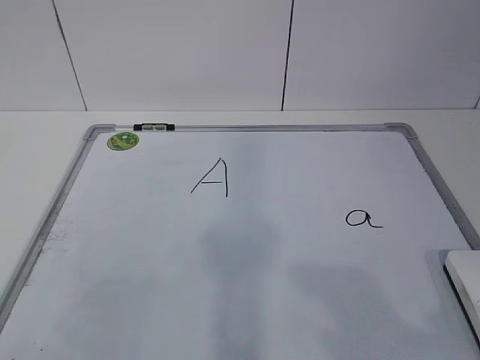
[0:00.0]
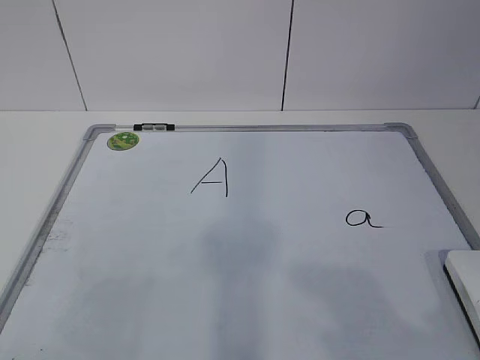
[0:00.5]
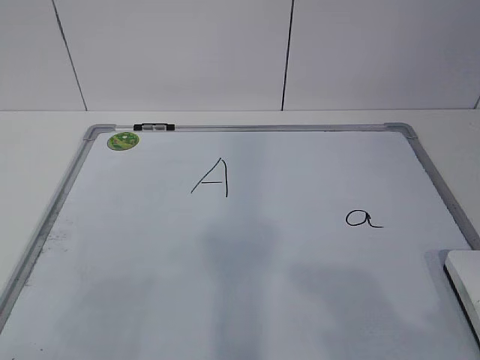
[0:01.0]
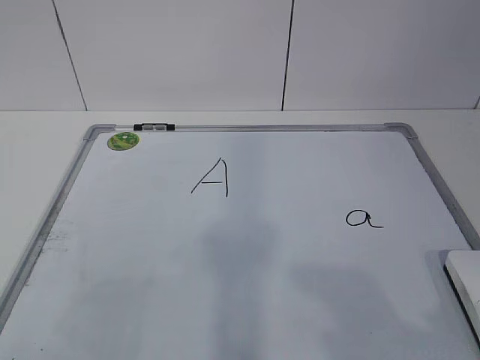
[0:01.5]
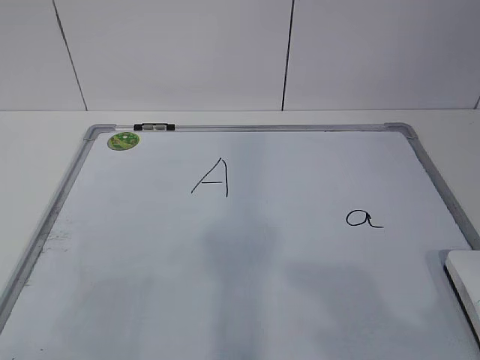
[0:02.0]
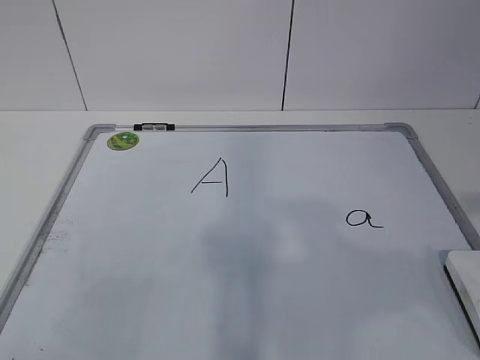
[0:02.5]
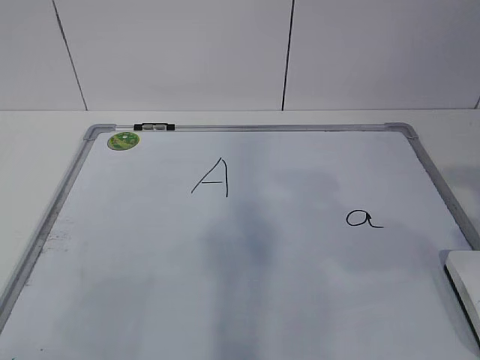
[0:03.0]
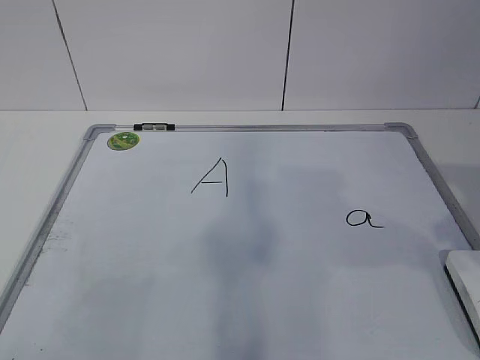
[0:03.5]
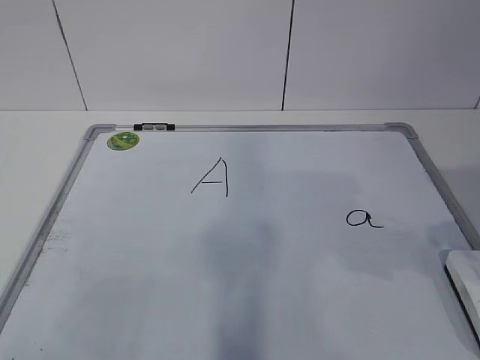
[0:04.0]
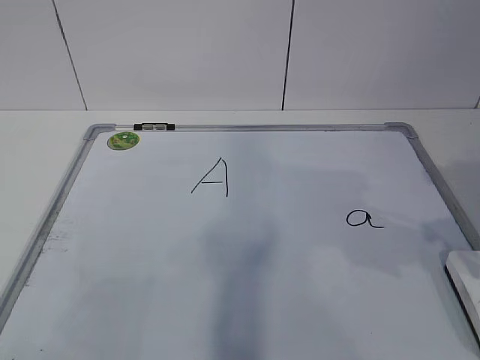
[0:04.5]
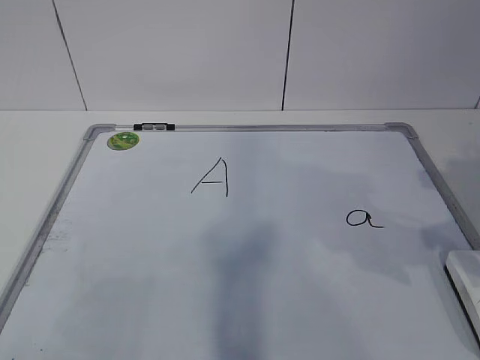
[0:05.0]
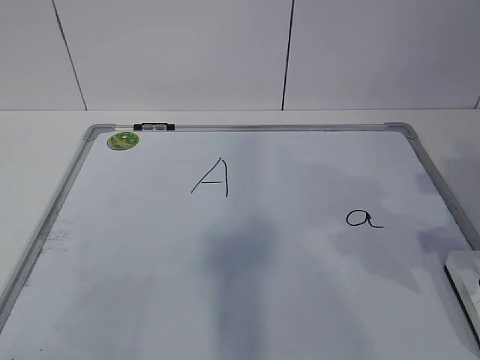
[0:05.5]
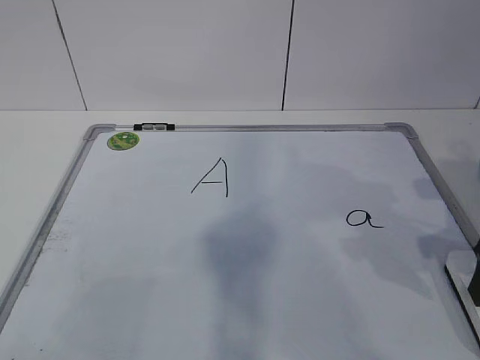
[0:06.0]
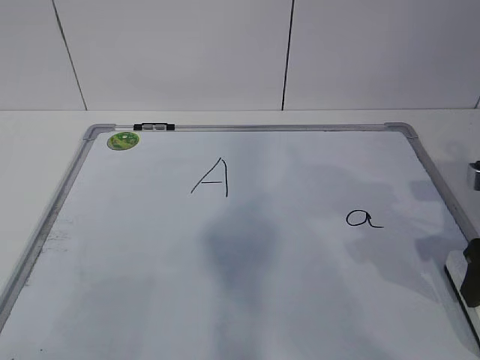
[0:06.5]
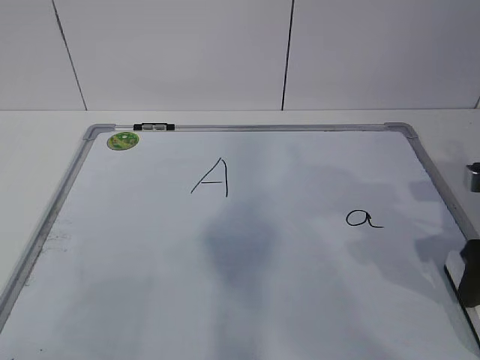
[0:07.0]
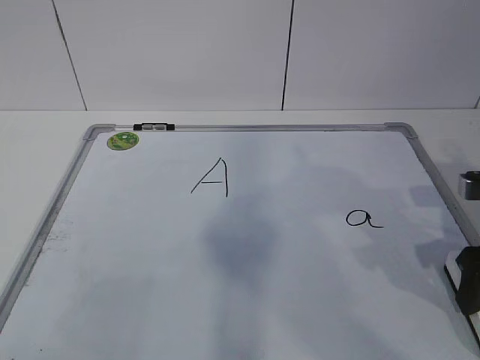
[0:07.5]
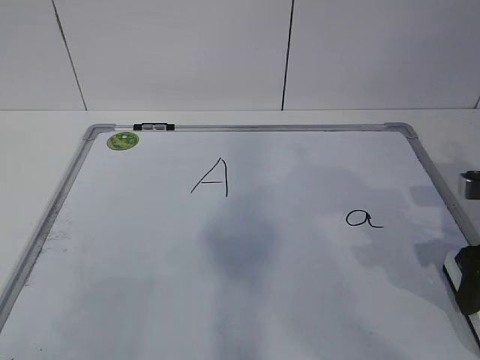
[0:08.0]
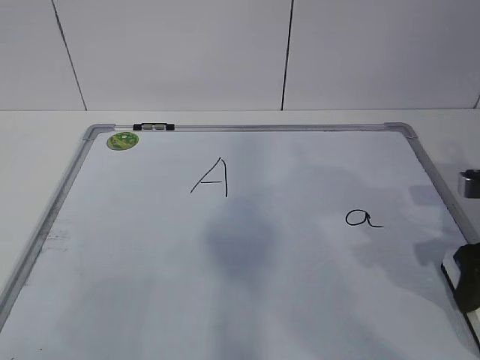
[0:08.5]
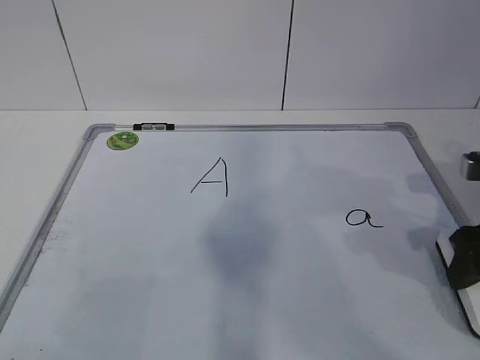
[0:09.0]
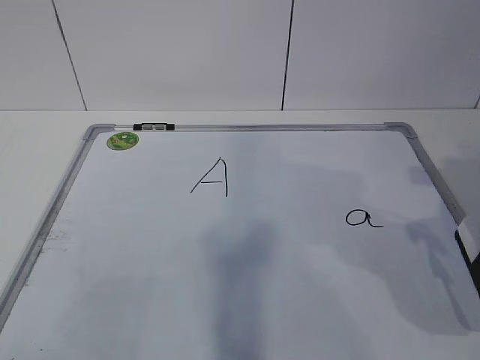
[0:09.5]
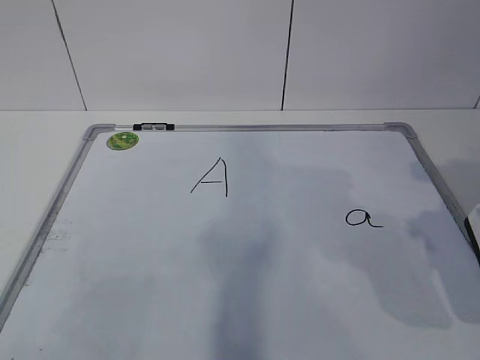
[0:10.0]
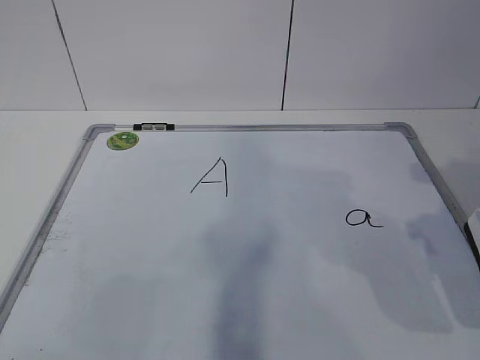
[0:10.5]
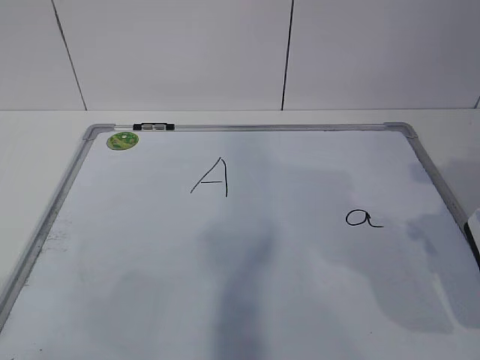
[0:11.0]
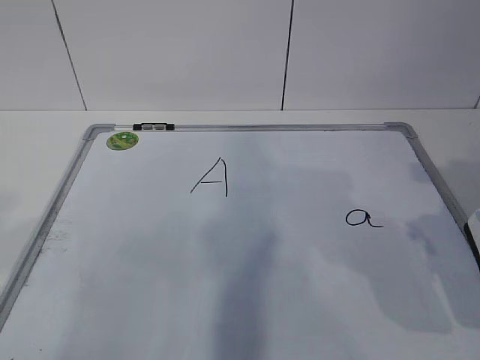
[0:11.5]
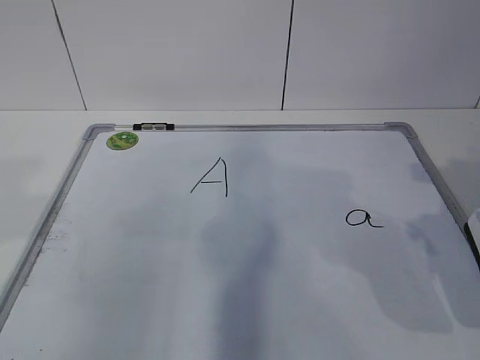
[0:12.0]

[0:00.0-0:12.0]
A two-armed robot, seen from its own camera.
Task of the whole recording: pick up the eraser on the blackboard and erase the letter "a".
0:06.0 to 0:08.0: The grippers stay close to where they were, moving slightly.
0:08.0 to 0:10.0: The right gripper travels upward and backward by some 10 cm.

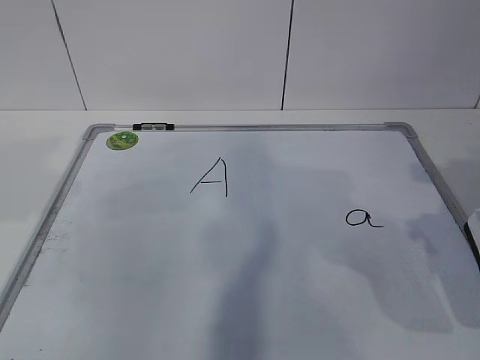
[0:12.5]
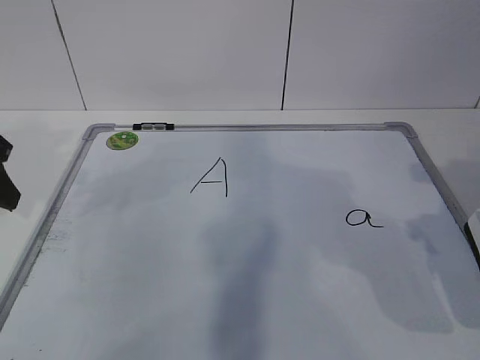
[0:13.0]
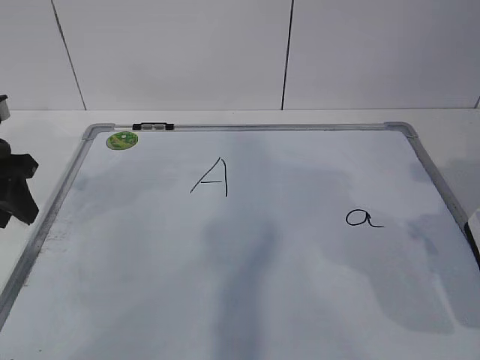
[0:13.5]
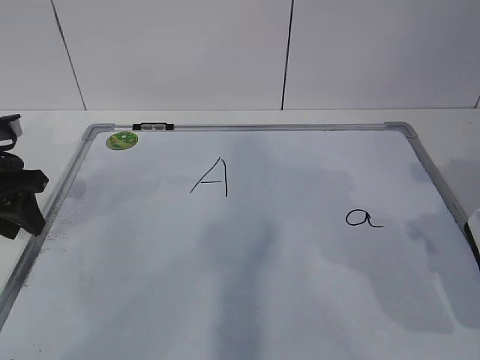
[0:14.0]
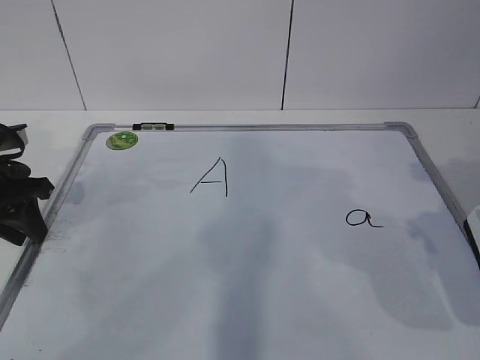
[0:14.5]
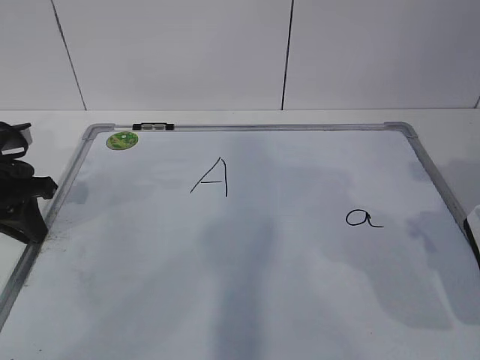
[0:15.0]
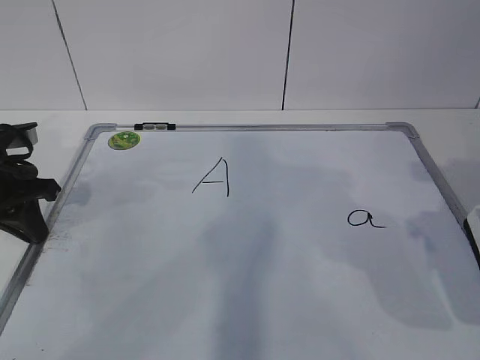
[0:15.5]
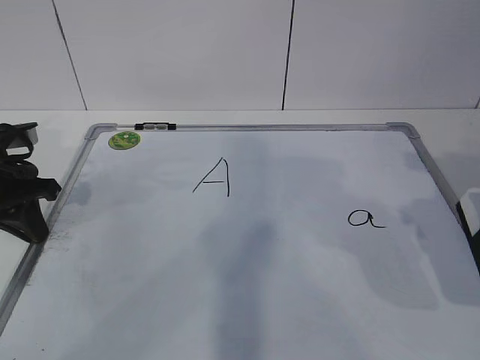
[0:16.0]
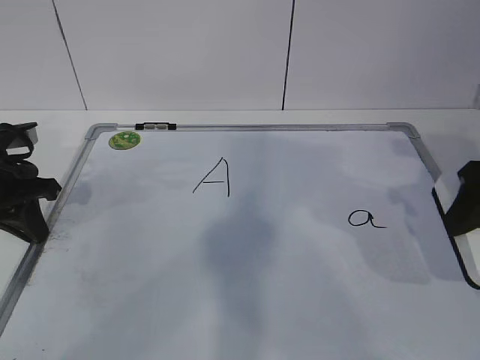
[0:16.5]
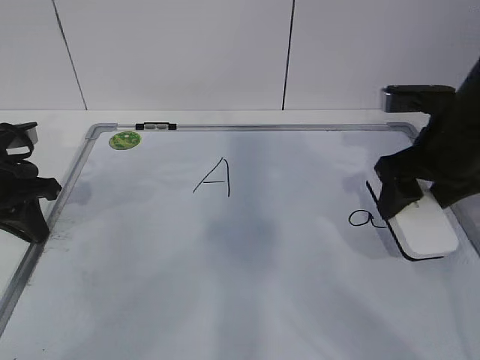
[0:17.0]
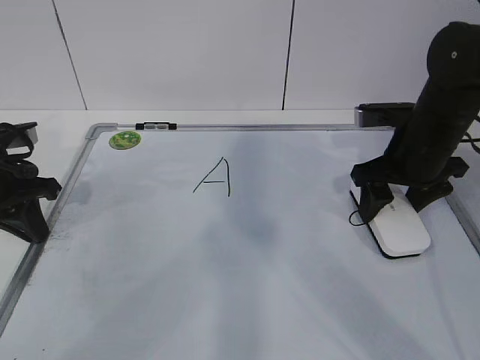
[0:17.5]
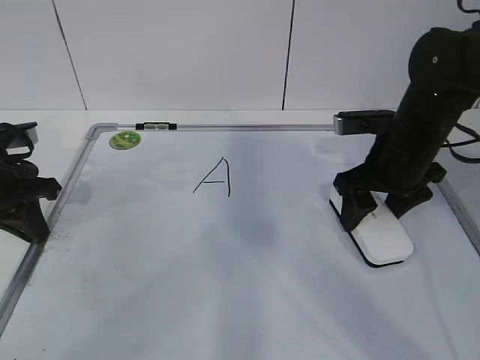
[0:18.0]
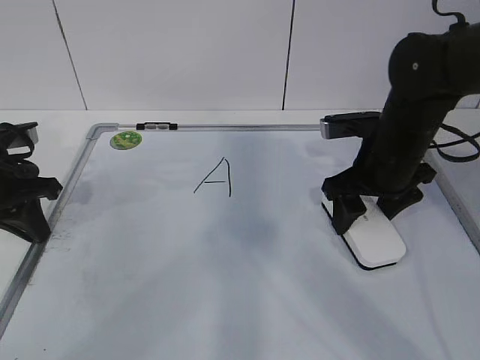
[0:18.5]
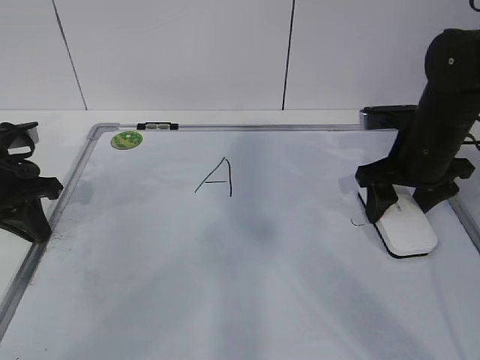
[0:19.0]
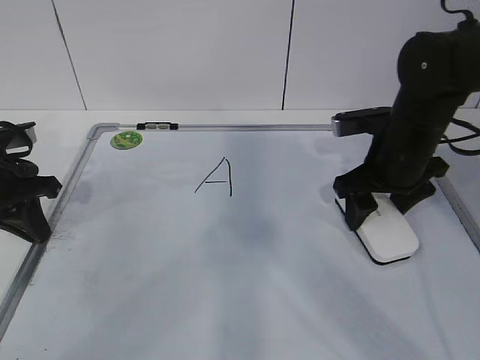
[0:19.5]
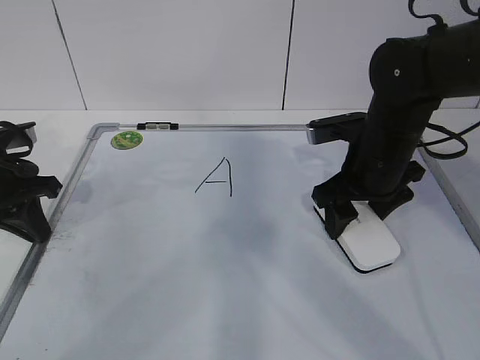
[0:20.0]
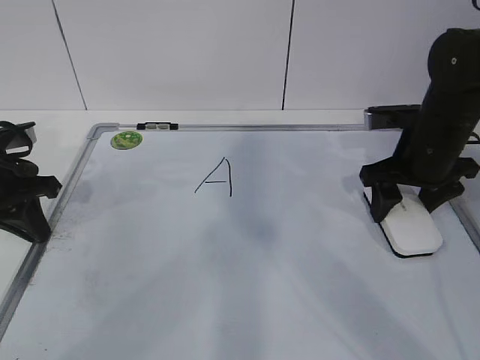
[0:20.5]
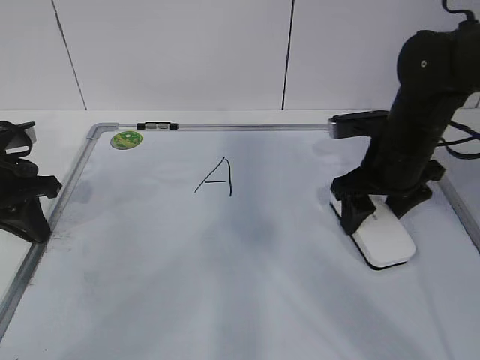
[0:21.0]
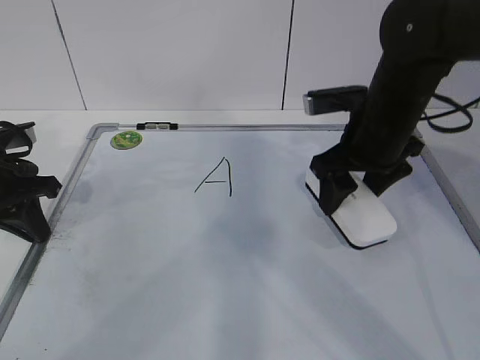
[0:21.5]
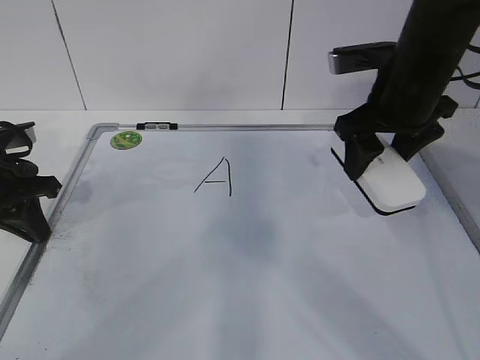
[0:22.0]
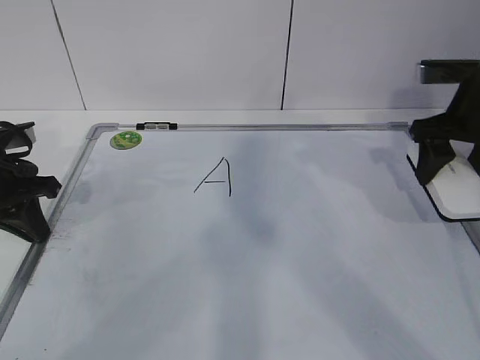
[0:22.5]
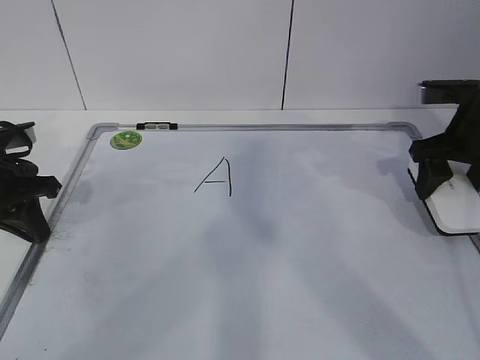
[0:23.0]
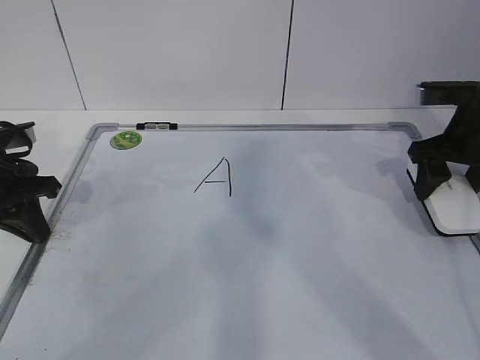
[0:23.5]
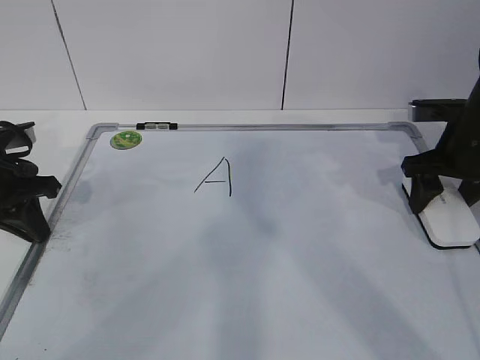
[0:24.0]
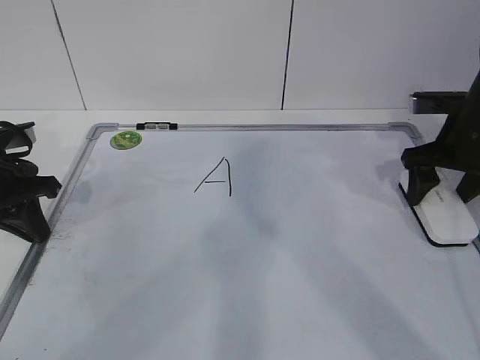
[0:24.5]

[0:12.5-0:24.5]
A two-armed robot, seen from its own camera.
Task of the whole recording: pick up the eraser on the blackboard and erase the letter "a".
Step, 0:13.0 to 0:17.5: Erase the letter a with your right hand.
Step, 0:18.0 to 0:20.0: Put down the eraser with your right hand.
0:12.5 to 0:14.5: The left gripper moves downward and forward, about 15 cm.
0:14.5 to 0:16.5: The left gripper closes its fingers; the right gripper heads forward, covering roughly 5 cm.
0:16.5 to 0:18.5: The right gripper shifts roughly 15 cm forward, to the left and downward.
0:18.5 to 0:20.5: The right gripper moves left and right over approximately 5 cm, changing direction 2 times.
0:20.5 to 0:22.5: The right gripper shifts roughly 5 cm upward.
0:22.5 to 0:24.5: The right gripper is displaced downward by about 5 cm.

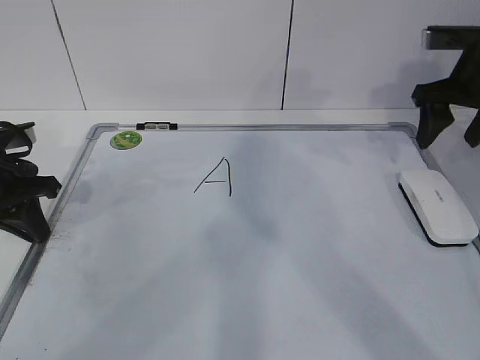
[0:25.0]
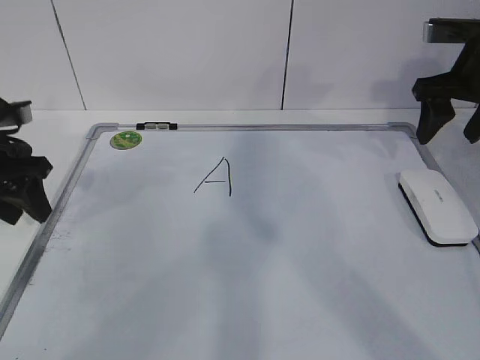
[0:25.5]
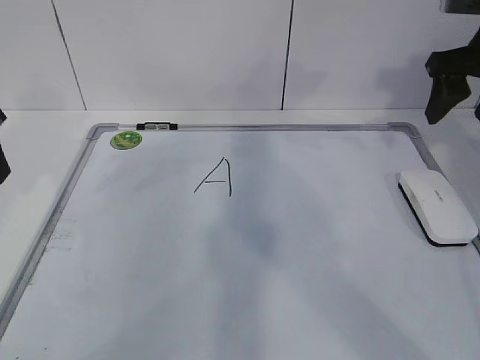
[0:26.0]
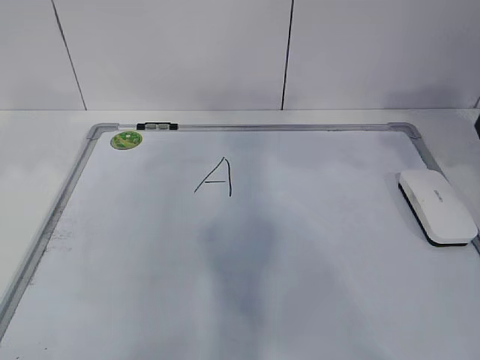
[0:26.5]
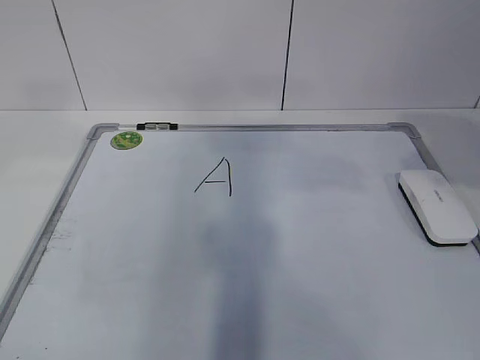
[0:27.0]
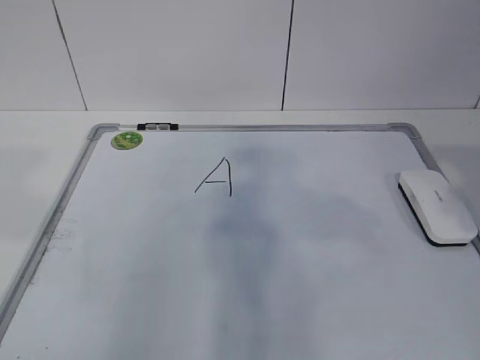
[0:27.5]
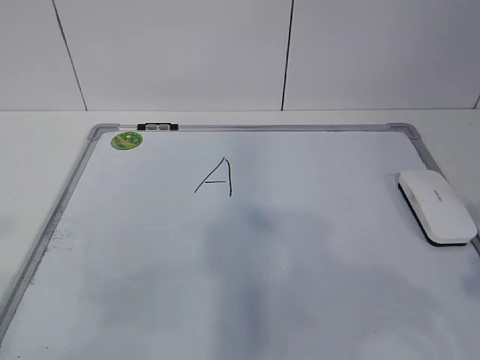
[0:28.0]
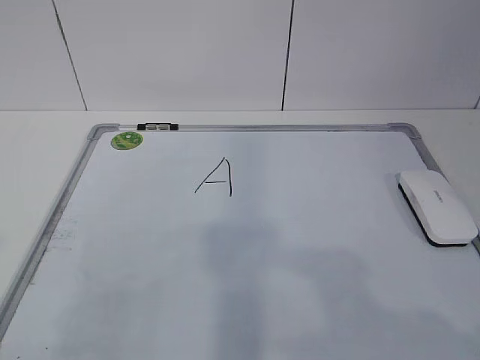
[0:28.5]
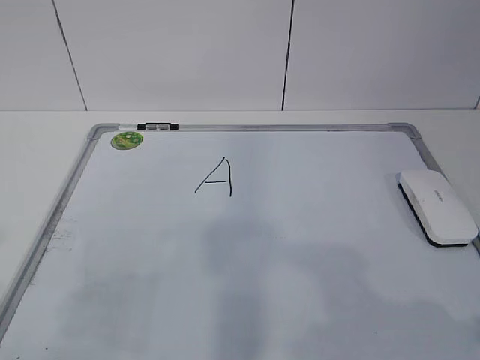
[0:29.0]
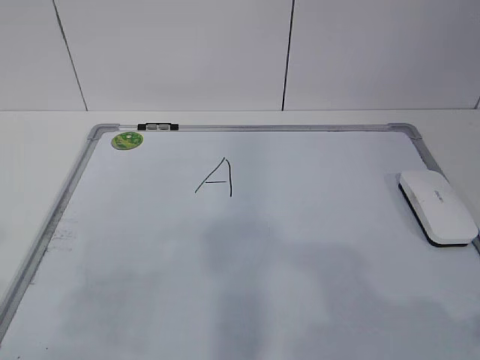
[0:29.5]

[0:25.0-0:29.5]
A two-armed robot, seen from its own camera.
Task of the whole recording: pick up the eraser on the blackboard and erase the letter "a".
0:25.0 to 0:27.0: The right gripper heads backward and upward, covering roughly 20 cm; the left gripper heads upward and backward, covering some 30 cm, and opens.
0:27.0 to 0:29.5: The two grippers go approximately 20 cm backward and downward.
